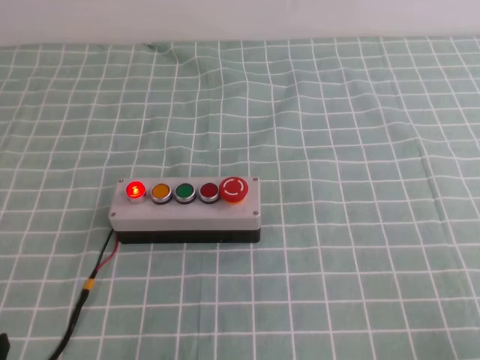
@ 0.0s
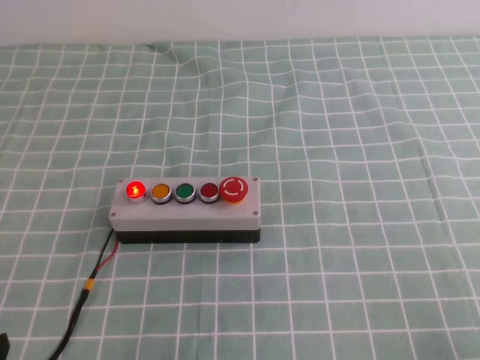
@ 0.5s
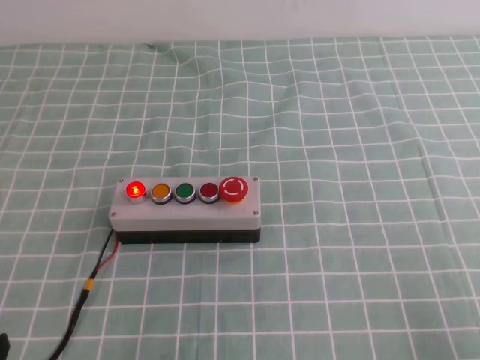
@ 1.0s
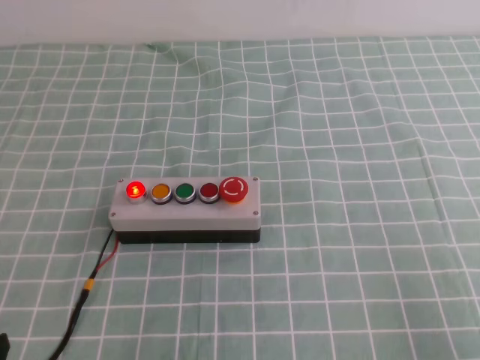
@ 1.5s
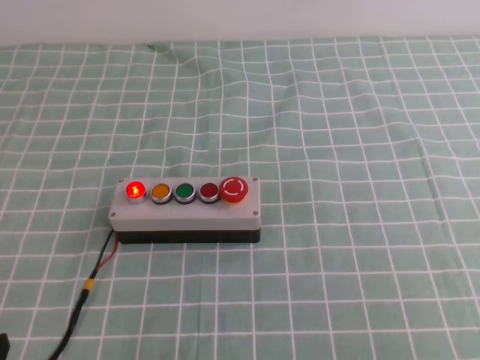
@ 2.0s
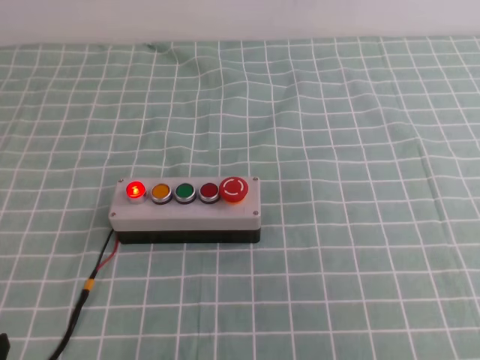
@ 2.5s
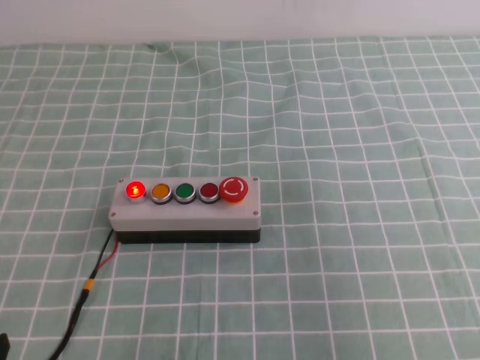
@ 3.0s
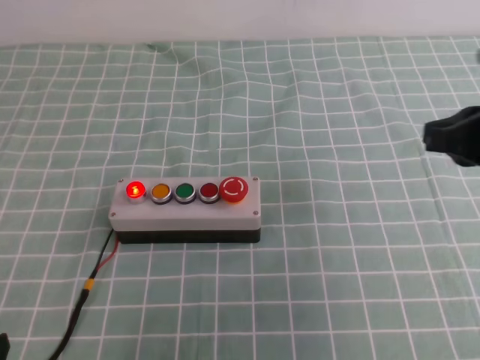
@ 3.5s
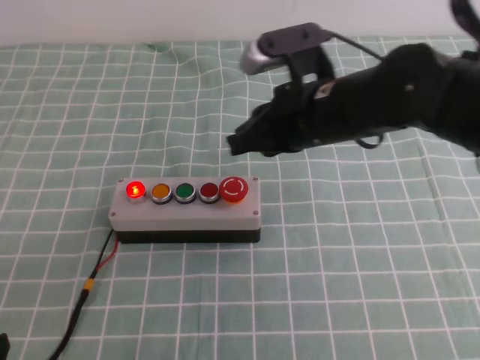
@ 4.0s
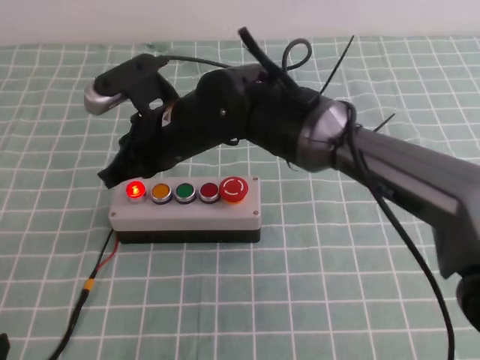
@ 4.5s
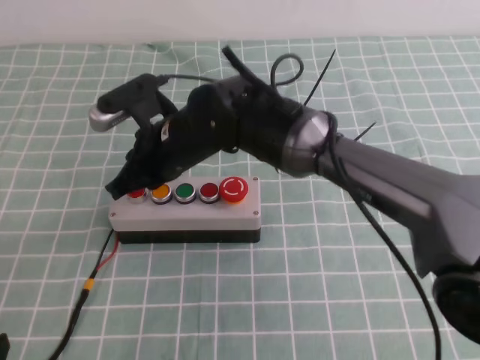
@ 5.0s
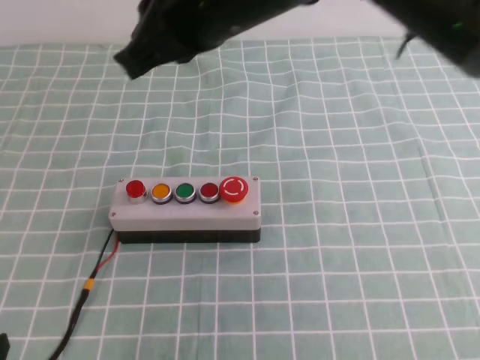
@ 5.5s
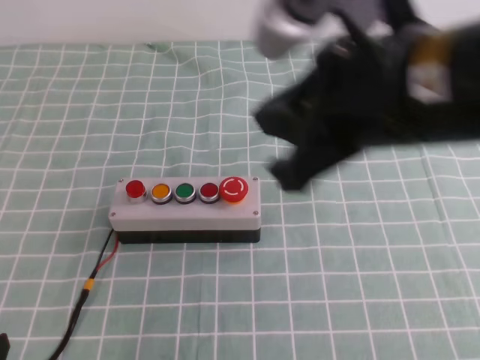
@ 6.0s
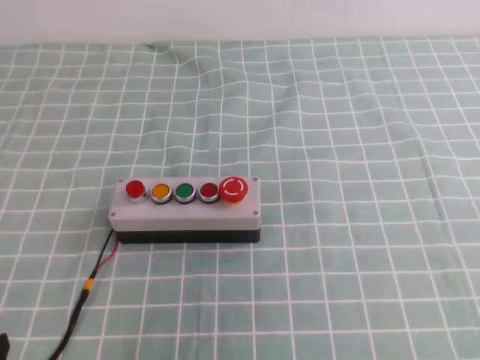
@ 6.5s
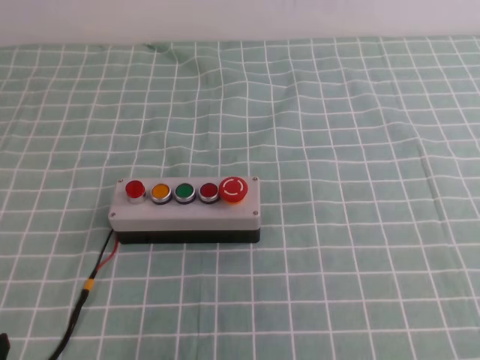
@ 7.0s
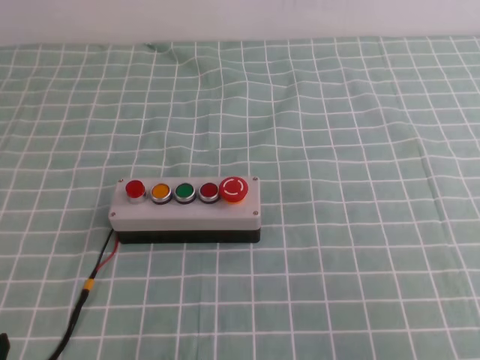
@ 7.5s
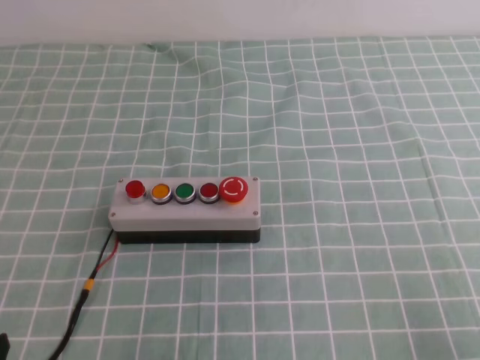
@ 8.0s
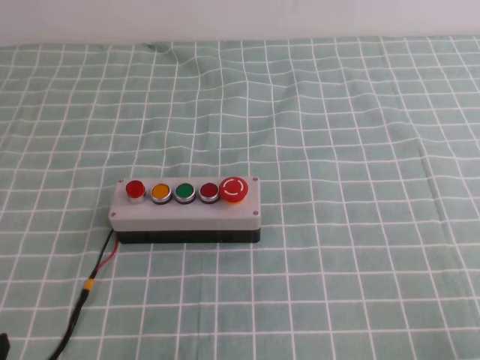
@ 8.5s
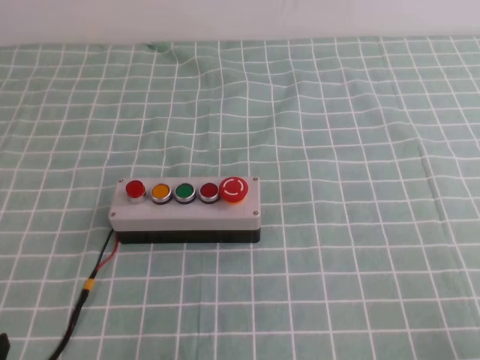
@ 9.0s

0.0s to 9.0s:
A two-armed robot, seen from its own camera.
Task of the whole recording: press the button switch on the cyan tablecloth with the right gripper to turn off the button.
Step, 0.0s to 9.0s: Press the button to turn off.
2.0s to 4.5s: The right gripper heads to the left and forward, covering approximately 50 cm.
4.5s to 7.0s: The right gripper heads to the right, backward and upward, covering some 50 cm.
